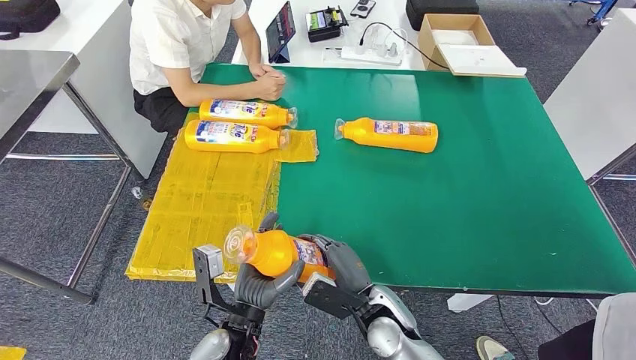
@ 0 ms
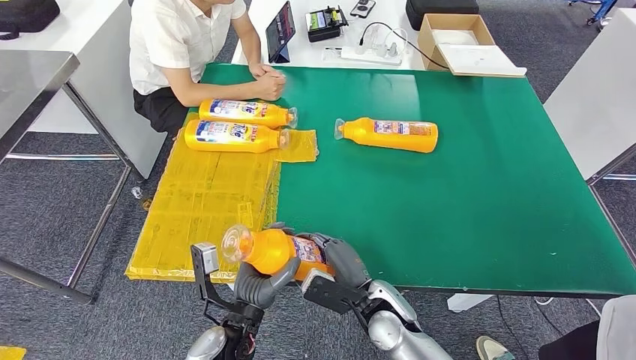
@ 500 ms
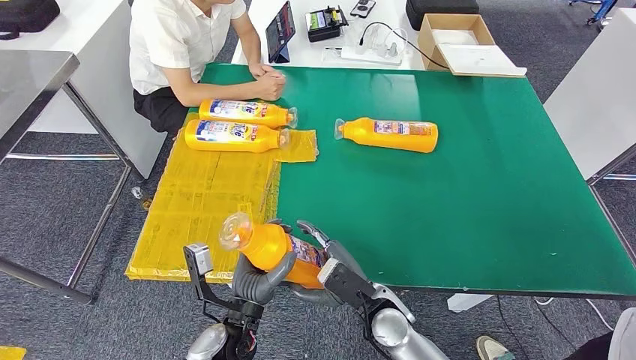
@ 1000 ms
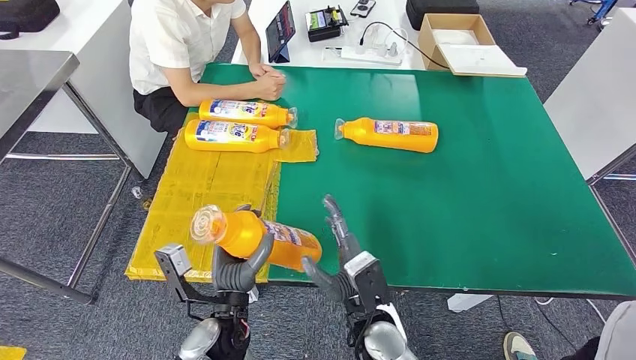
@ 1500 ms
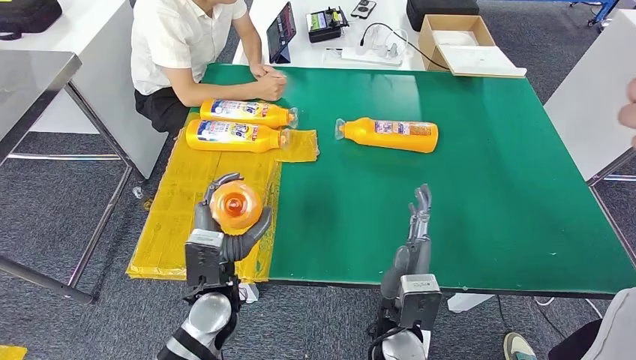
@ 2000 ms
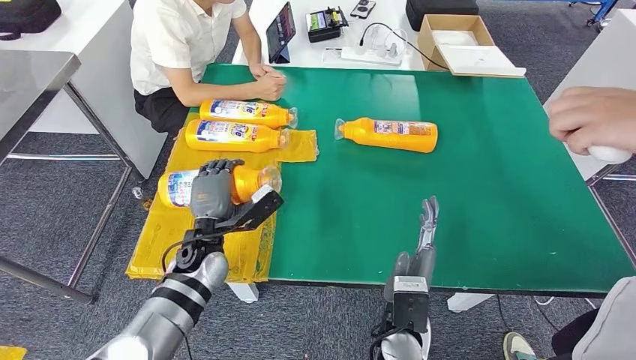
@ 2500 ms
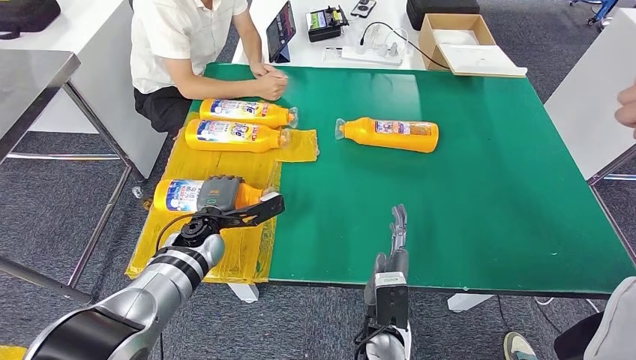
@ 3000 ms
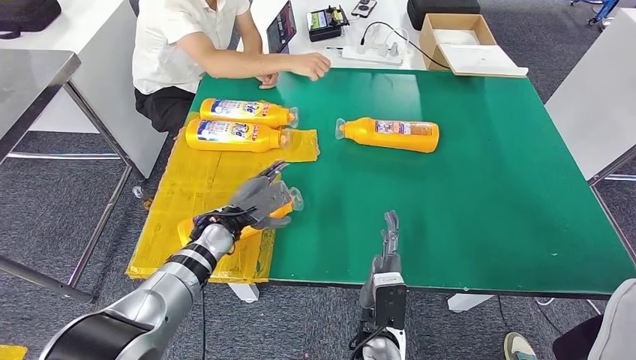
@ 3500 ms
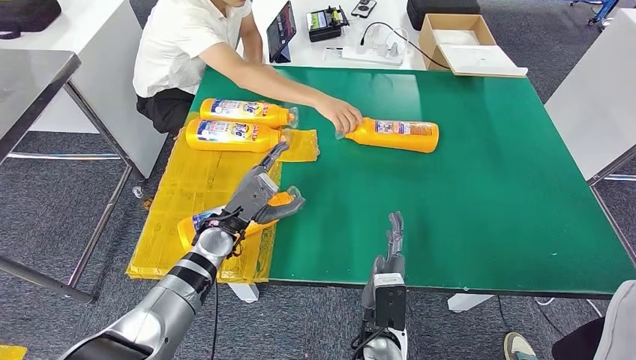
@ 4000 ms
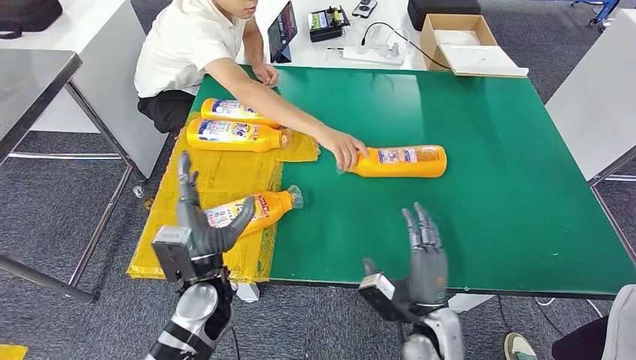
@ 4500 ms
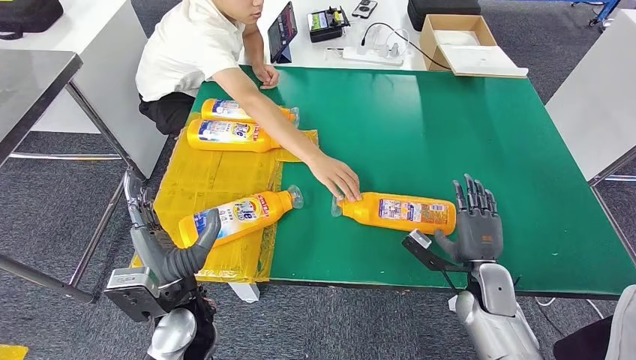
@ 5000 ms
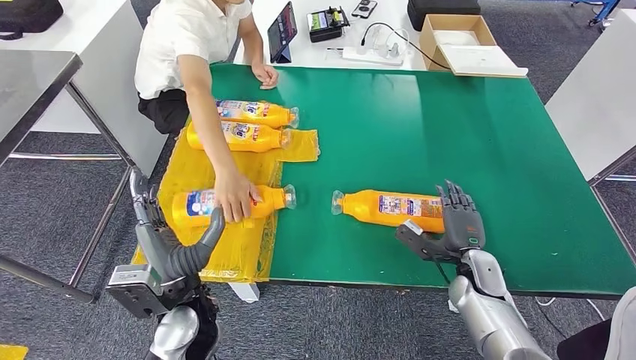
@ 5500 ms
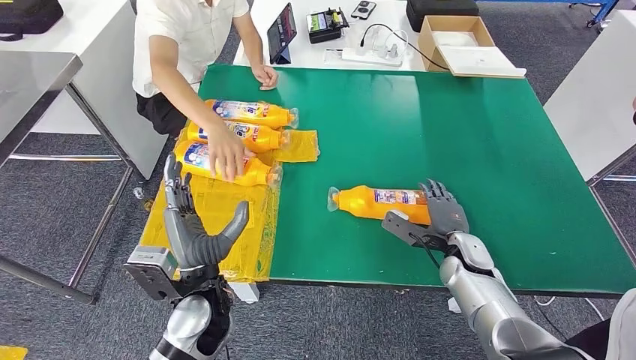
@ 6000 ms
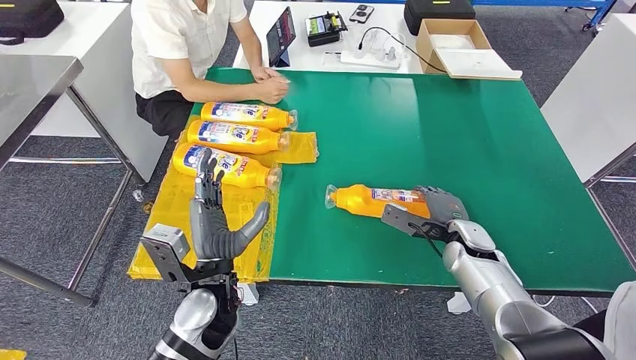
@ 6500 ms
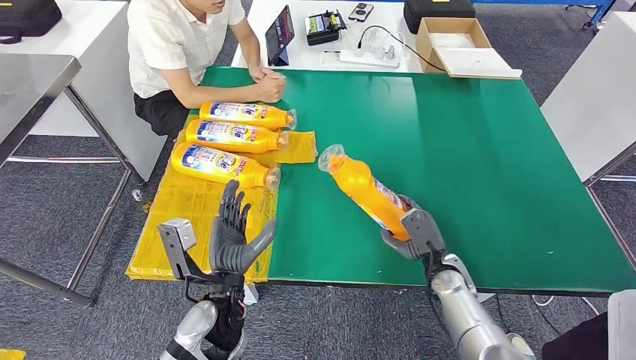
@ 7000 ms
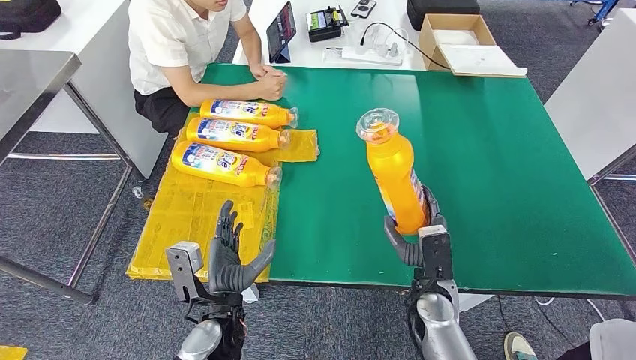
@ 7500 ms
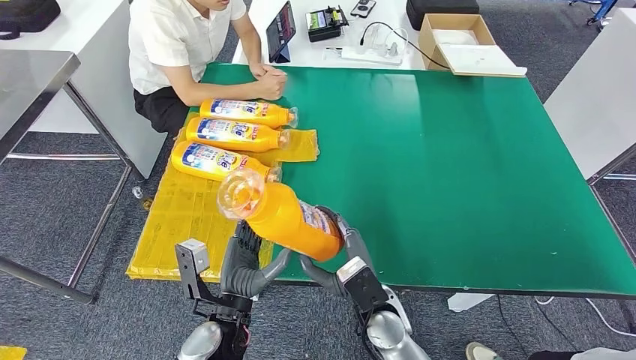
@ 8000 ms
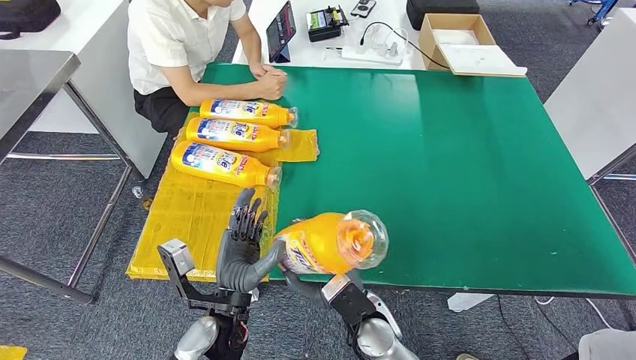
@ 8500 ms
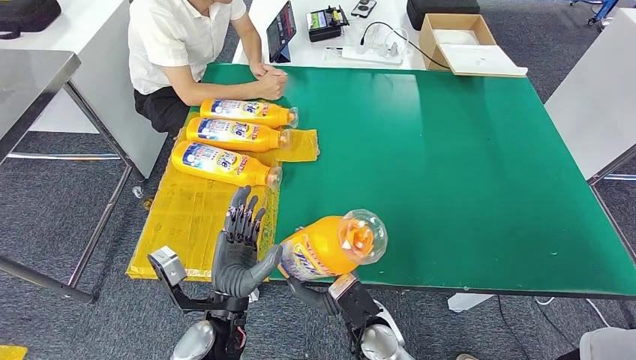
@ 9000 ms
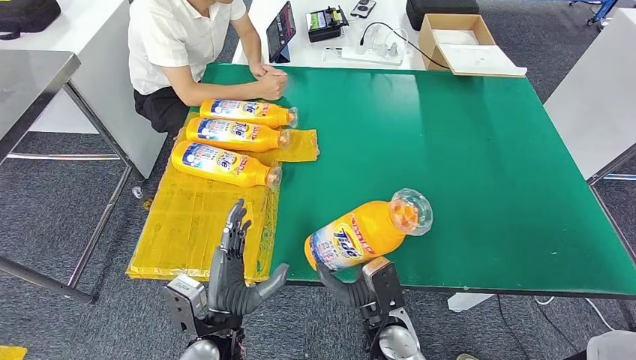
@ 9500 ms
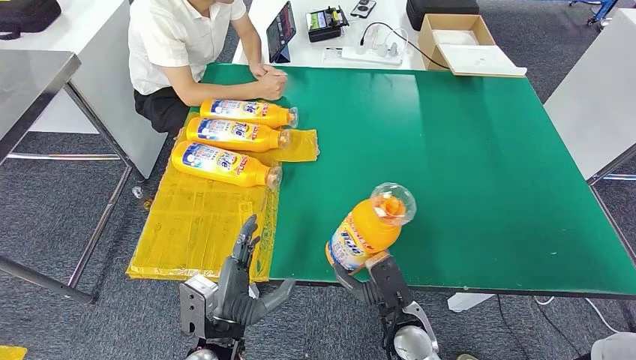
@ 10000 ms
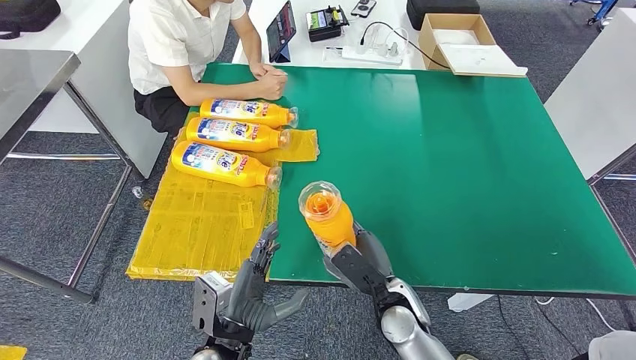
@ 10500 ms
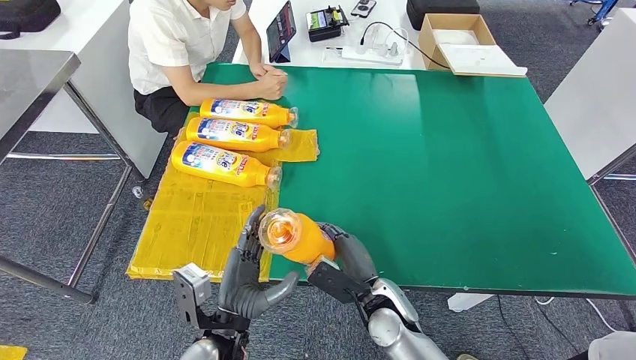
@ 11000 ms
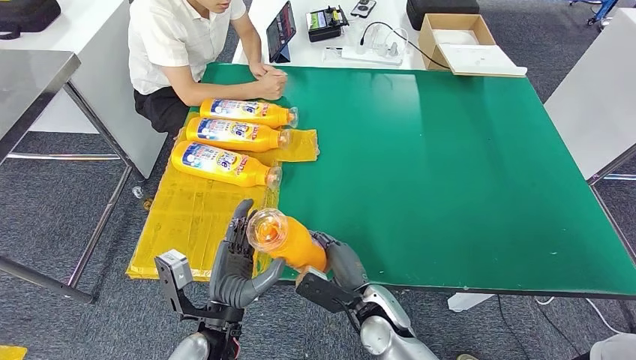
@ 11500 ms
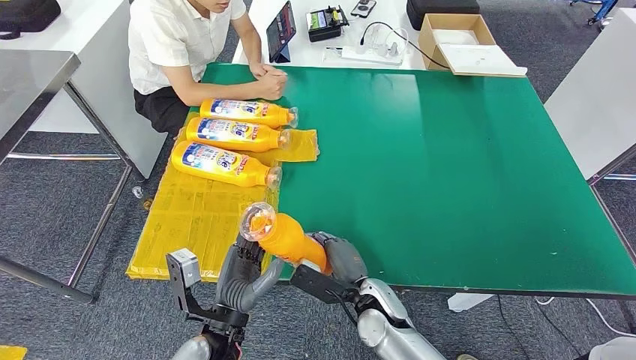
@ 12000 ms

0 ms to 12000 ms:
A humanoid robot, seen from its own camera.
Step, 0 ms to 4500 ms: Flip the bottle to face forward.
Step, 5500 ms to 7000 ms: Pick up the bottle from the table.
0 ms to 2000 ms: The right hand travels upward by roughly 5 cm. Meanwhile the left hand goes approximately 5 cm forward.
2000 ms to 4000 ms: The right hand is displaced downward by some 5 cm. Meanwhile the left hand is displaced forward by some 10 cm.
8000 ms to 10000 ms: The right hand shifts by about 5 cm.
10000 ms to 12000 ms: The right hand moves approximately 5 cm.

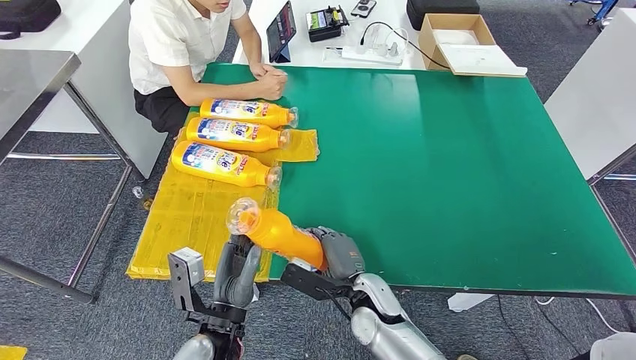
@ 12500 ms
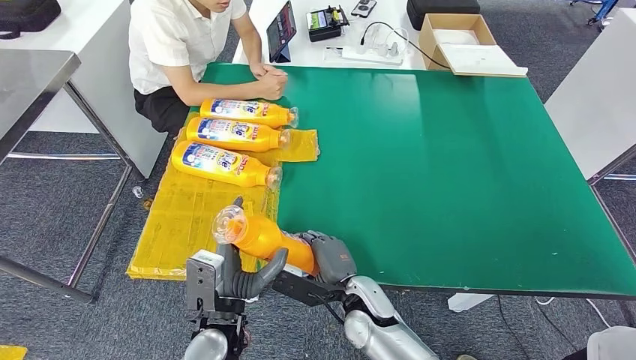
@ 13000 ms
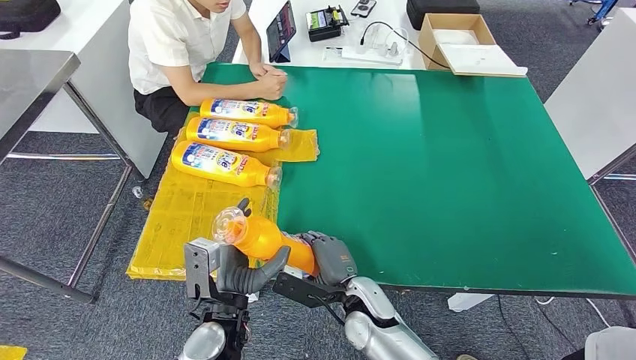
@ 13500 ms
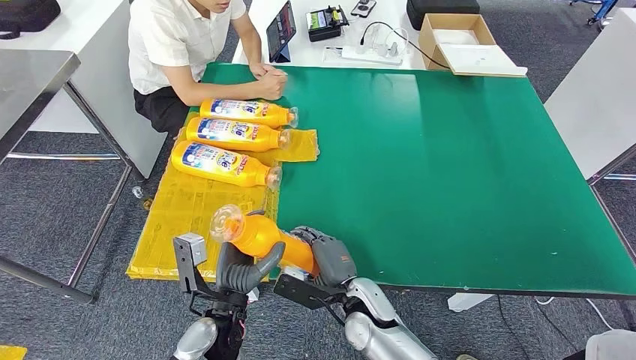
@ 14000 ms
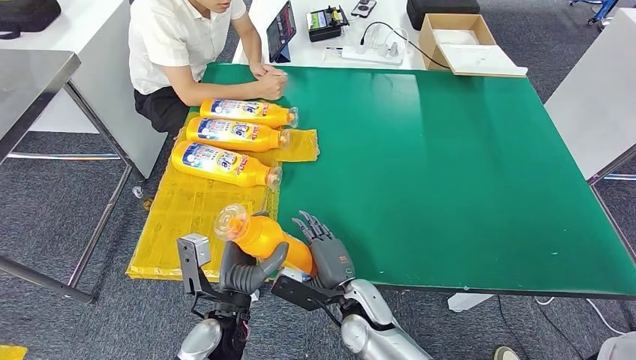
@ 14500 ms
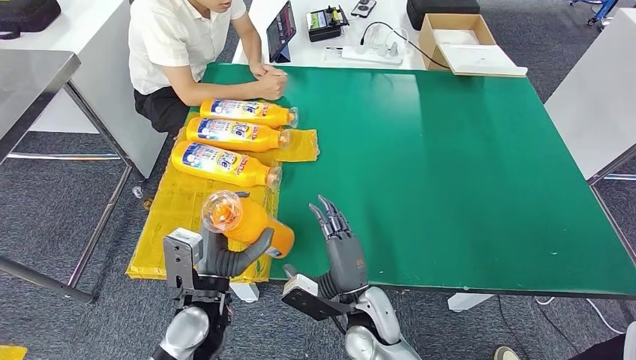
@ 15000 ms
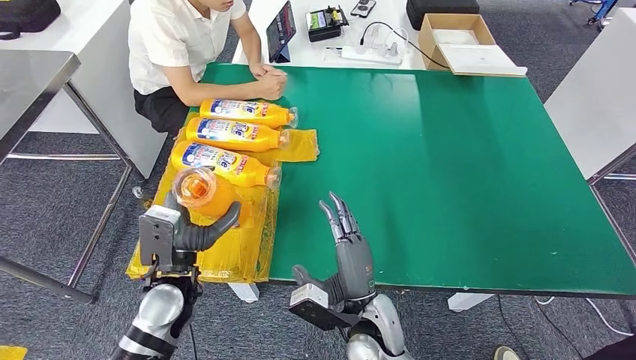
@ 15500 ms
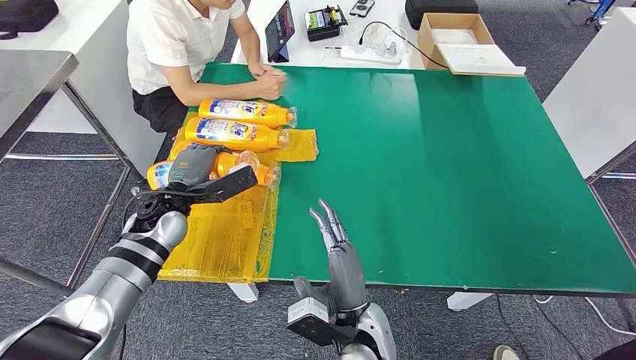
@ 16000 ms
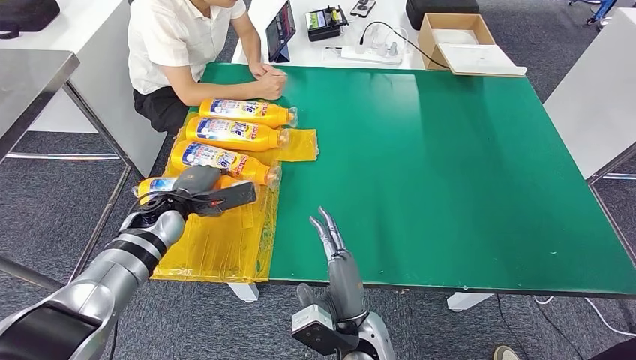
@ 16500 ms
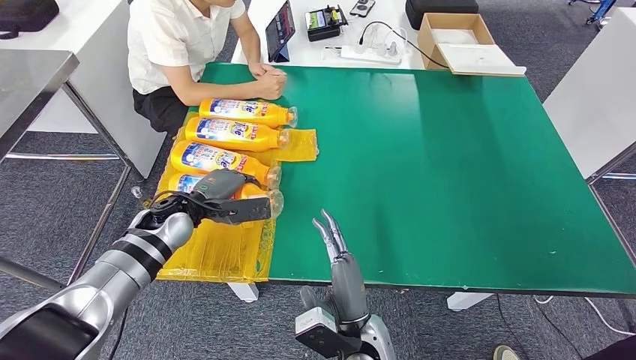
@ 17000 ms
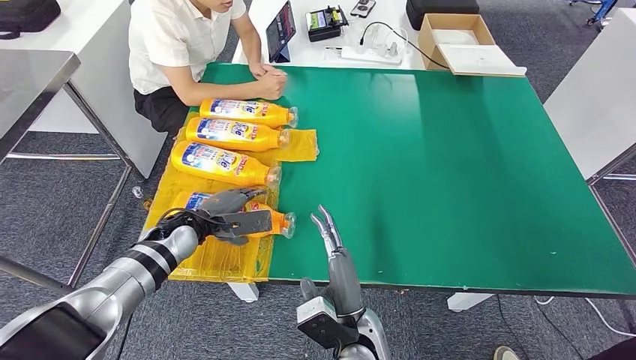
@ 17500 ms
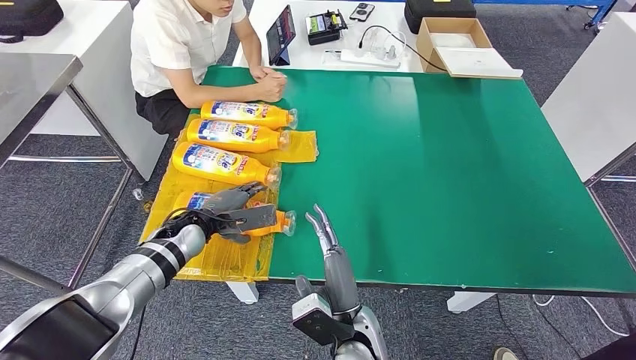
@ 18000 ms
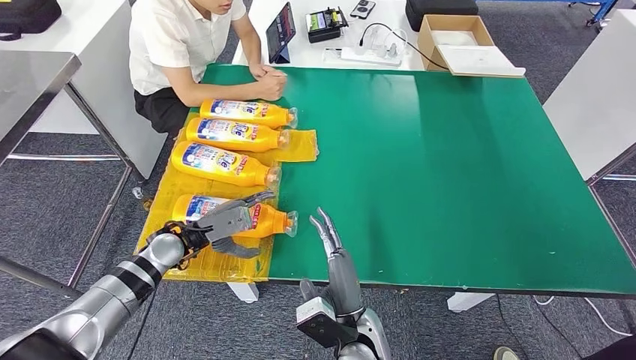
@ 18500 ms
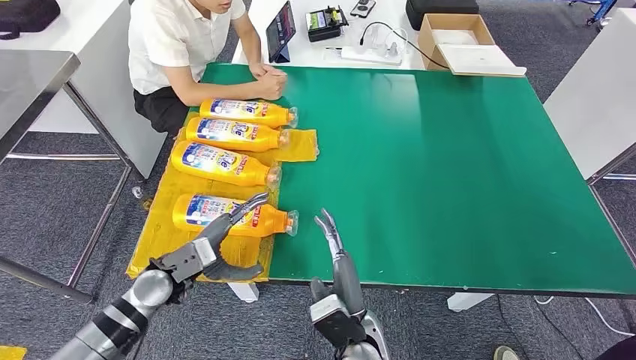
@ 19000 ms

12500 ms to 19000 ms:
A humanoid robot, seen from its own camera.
Step, 12500 ms to 18500 ms: Flip the bottle to face forward.
14500 ms to 17000 ms: The left hand is displaced forward and to the left by about 25 cm, while the right hand shifts some 5 cm backward.
17000 ms to 19000 ms: The left hand shifts about 10 cm backward and downward.
